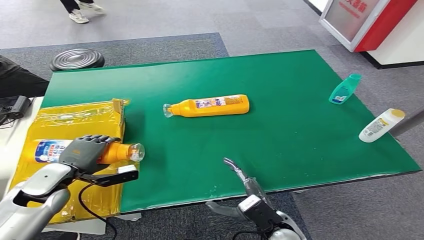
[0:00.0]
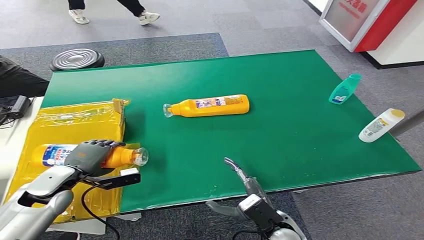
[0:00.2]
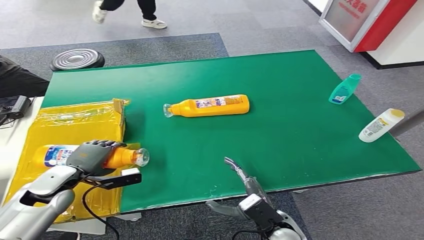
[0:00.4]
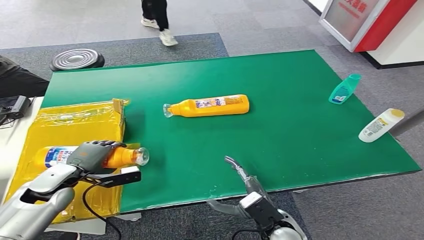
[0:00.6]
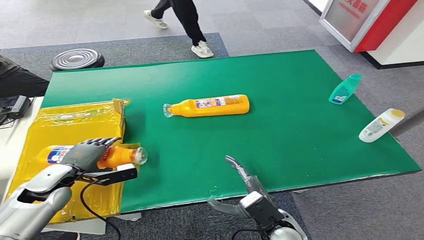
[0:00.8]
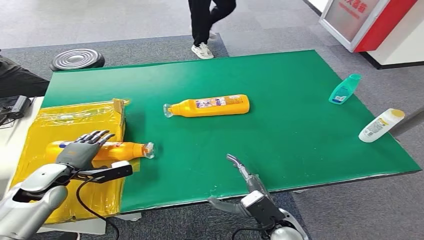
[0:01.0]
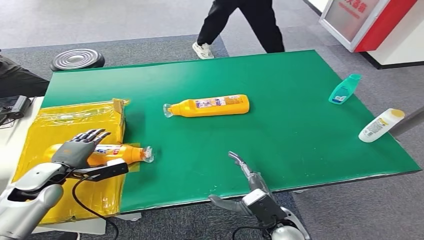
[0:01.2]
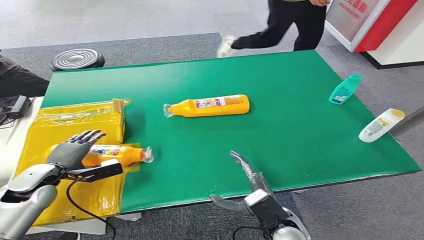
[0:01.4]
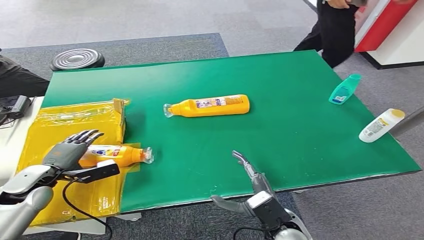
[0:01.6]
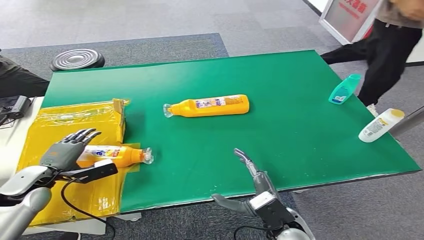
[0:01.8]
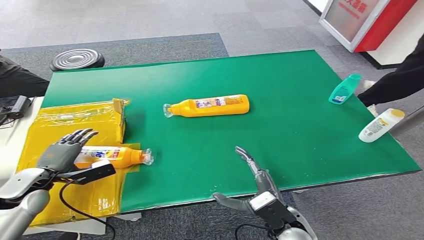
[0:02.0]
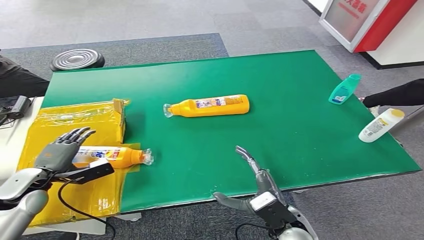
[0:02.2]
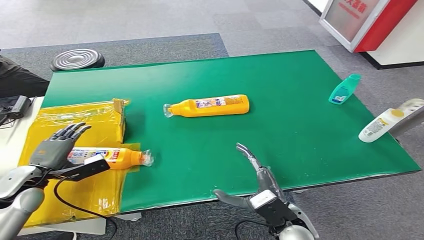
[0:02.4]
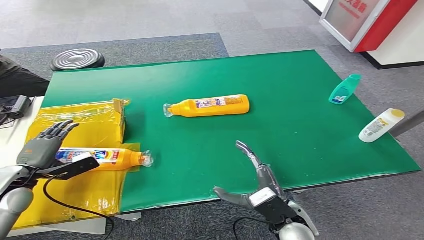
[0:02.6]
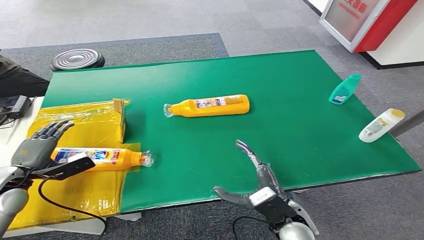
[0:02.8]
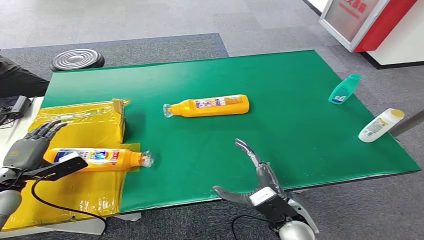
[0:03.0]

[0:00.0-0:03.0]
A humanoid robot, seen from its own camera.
Step, 0:00.0 to 0:03.0: Turn the bottle to the front side.
0:01.6 to 0:03.0: The left hand changes place by roughly 5 cm.
